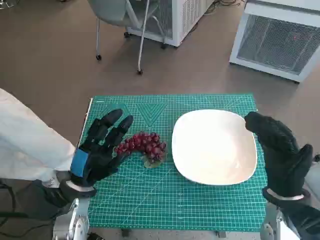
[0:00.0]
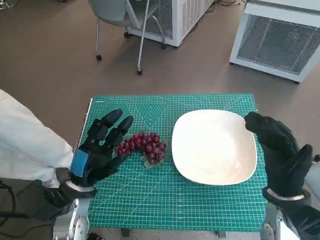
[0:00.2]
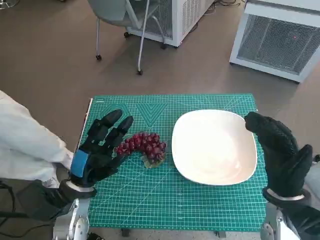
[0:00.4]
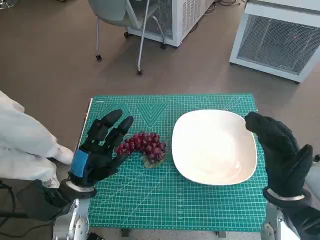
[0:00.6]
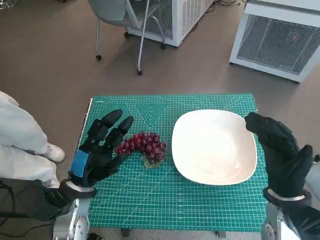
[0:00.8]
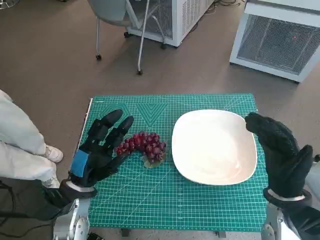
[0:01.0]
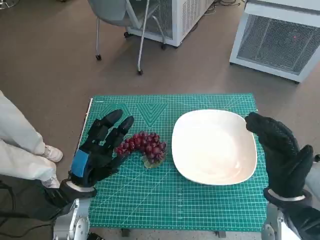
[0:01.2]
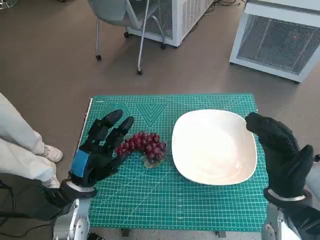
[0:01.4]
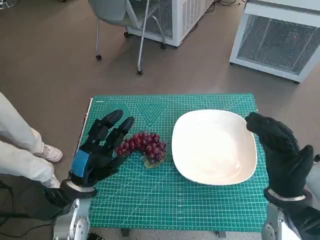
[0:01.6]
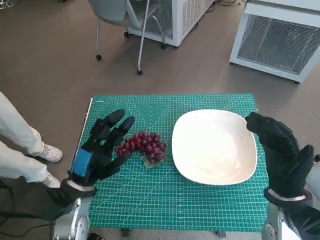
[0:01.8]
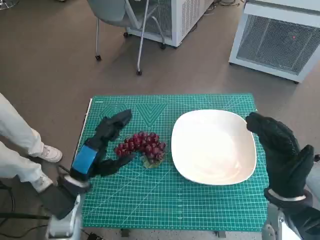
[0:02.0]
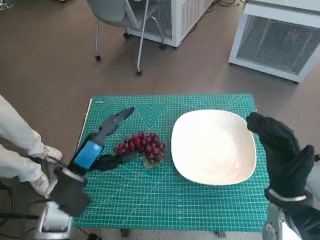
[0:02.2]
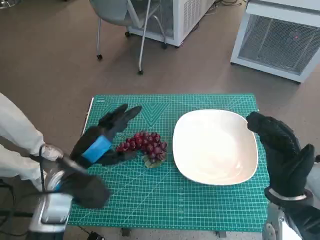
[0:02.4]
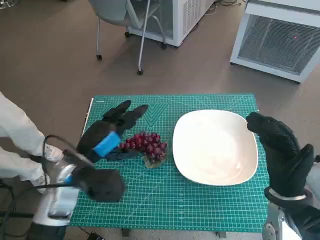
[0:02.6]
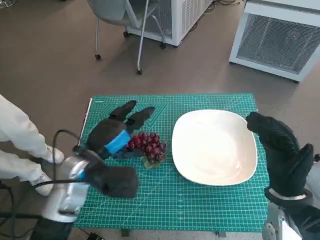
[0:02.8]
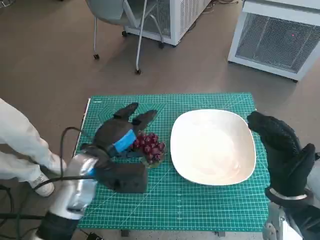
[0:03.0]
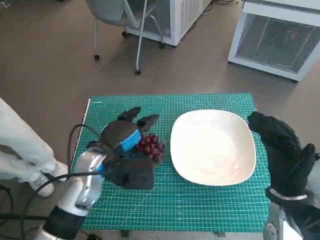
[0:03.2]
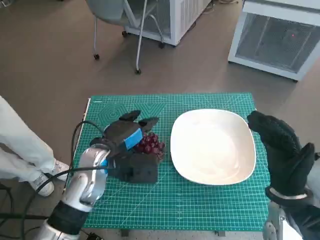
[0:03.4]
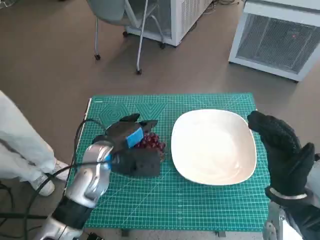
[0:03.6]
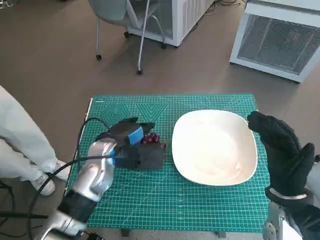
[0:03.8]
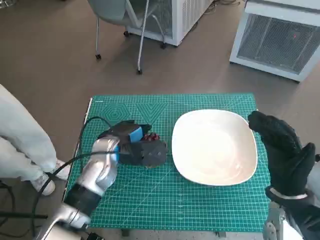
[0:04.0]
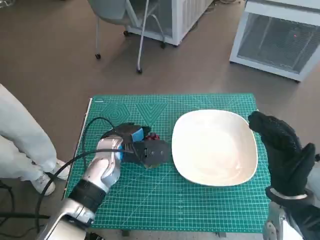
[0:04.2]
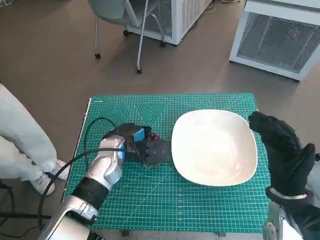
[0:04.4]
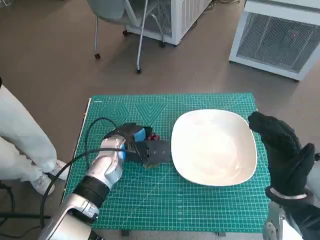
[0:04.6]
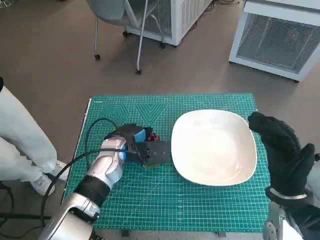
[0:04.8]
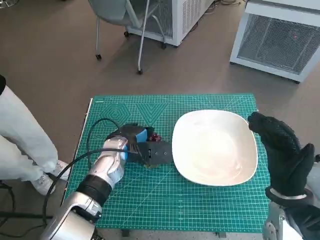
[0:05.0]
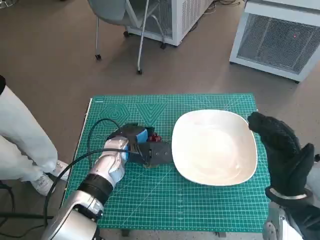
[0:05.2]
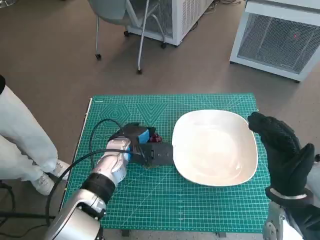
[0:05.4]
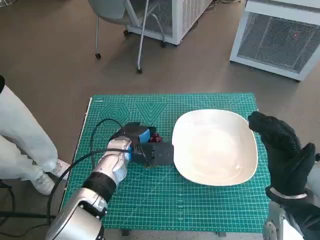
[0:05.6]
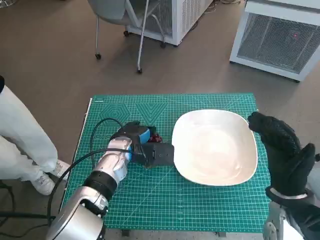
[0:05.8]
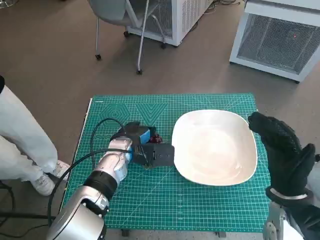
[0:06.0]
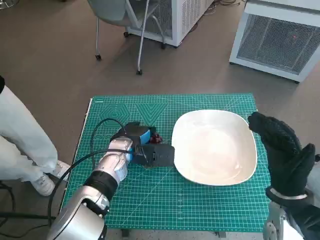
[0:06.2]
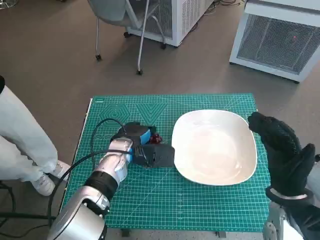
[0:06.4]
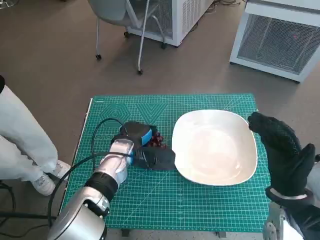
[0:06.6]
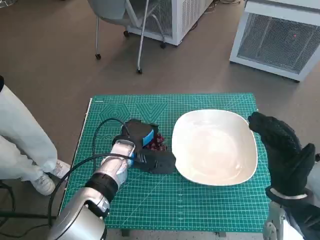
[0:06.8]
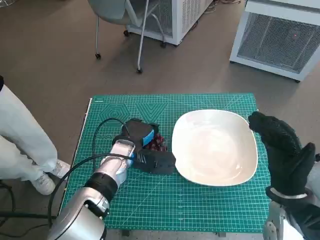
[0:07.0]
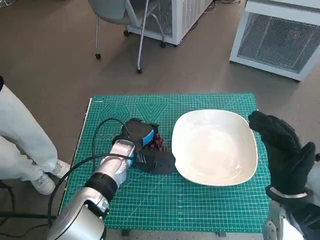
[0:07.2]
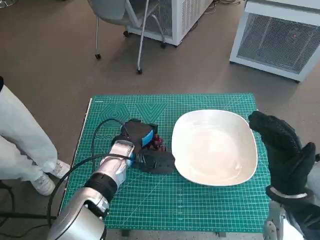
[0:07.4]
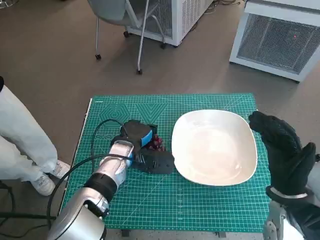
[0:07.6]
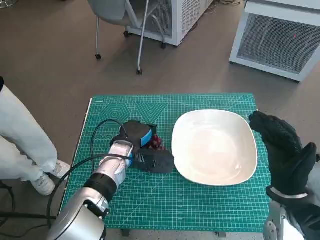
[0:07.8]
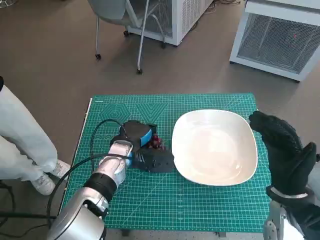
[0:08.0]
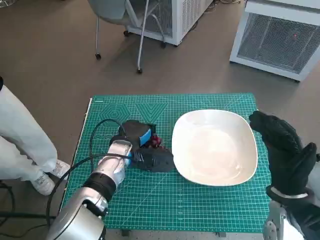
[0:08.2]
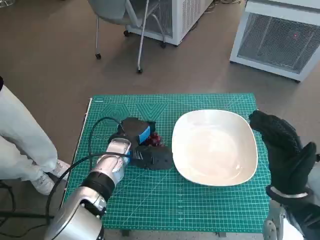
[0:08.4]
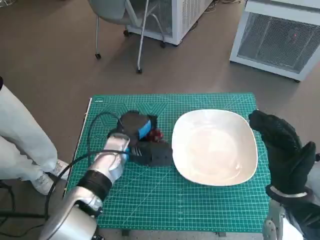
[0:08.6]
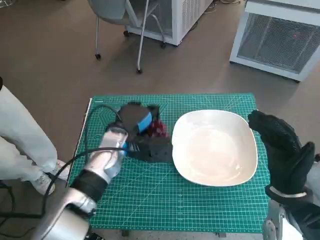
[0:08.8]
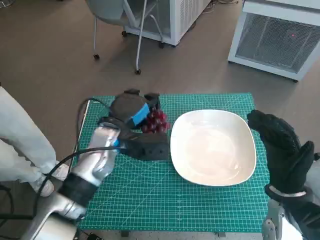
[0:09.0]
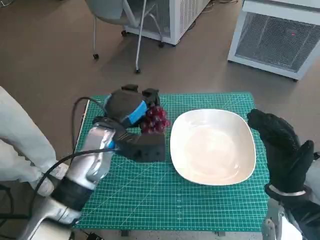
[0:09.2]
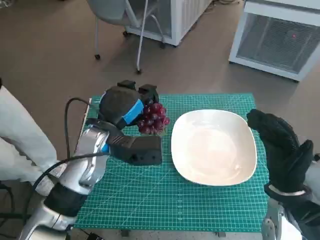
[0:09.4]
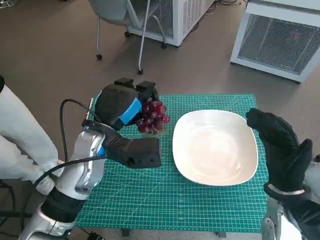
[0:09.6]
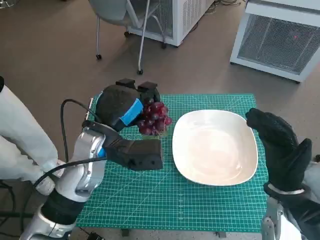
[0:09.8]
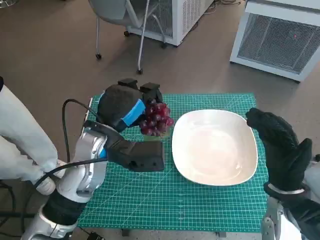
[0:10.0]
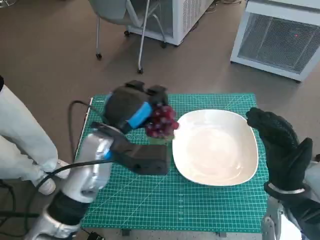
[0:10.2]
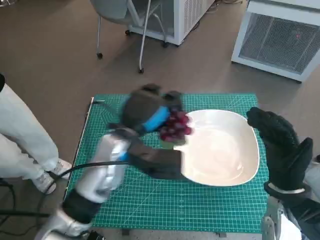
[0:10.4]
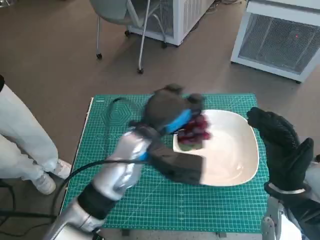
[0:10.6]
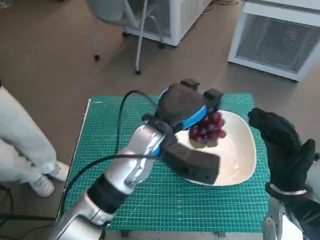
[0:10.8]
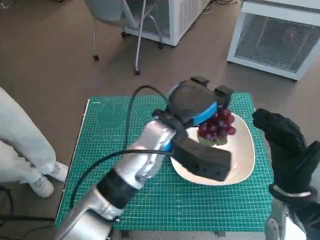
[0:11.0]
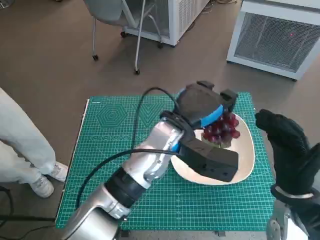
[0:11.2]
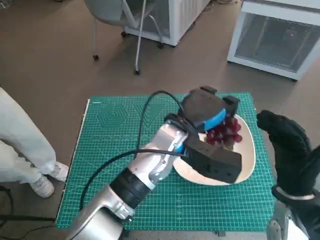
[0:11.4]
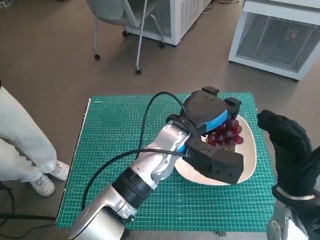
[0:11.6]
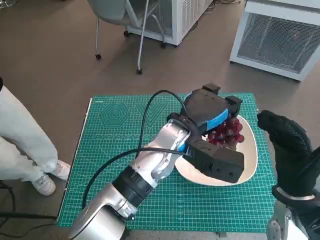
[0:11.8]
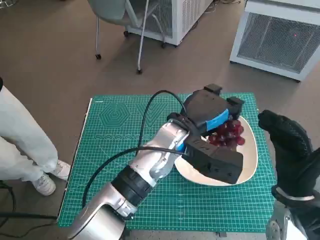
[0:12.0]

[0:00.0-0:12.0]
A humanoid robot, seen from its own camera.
Task of the whole recording: Pick up the grapes and put them on the plate.
Step, 0:00.0 to 0:06.6: Grasp the grapes with left hand.
0:01.6 to 0:03.0: The left hand goes approximately 5 cm upward.
0:03.0 to 0:04.4: The left hand goes approximately 5 cm forward.
0:04.4 to 0:07.6: The hands make only small movements.
0:07.6 to 0:09.0: The left hand is displaced upward by some 5 cm.
0:09.0 to 0:10.4: The left hand moves roughly 5 cm.
0:10.4 to 0:12.0: The left hand moves to the right, roughly 10 cm.

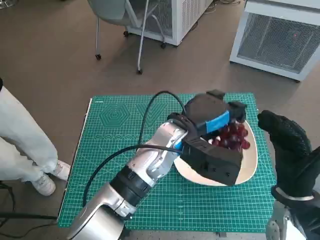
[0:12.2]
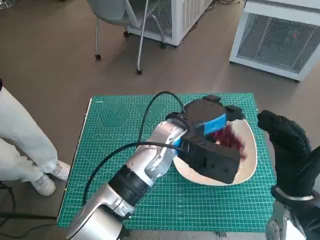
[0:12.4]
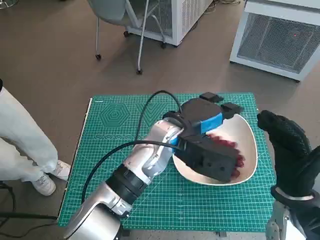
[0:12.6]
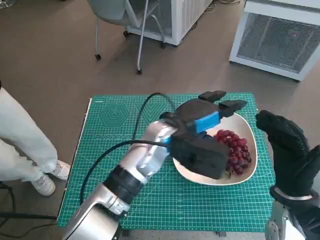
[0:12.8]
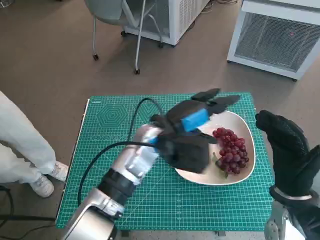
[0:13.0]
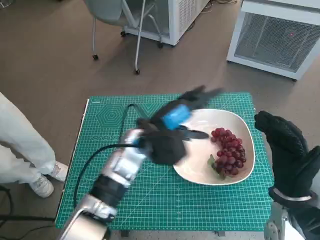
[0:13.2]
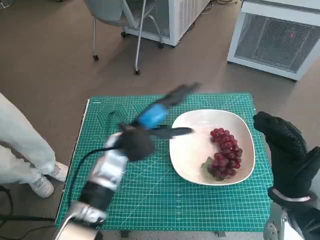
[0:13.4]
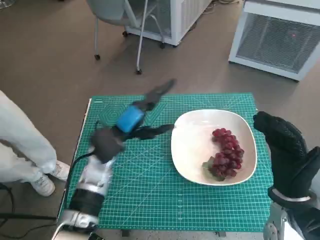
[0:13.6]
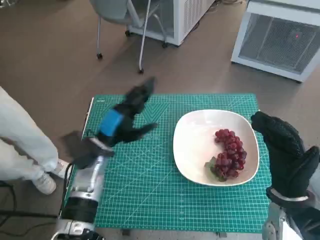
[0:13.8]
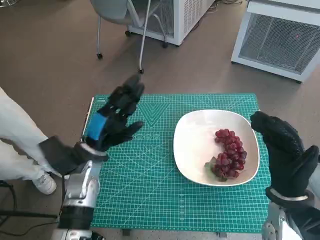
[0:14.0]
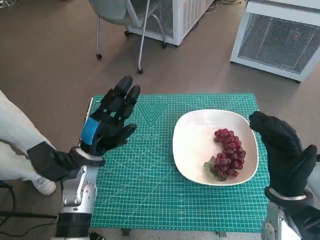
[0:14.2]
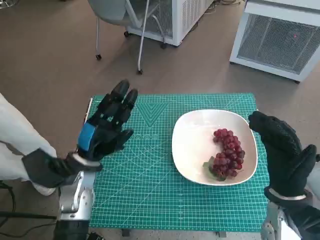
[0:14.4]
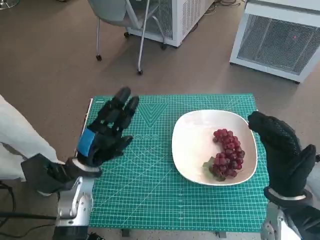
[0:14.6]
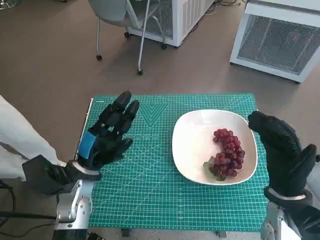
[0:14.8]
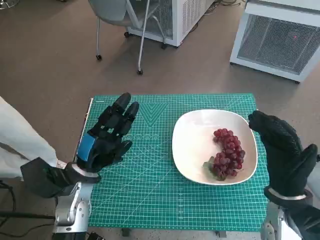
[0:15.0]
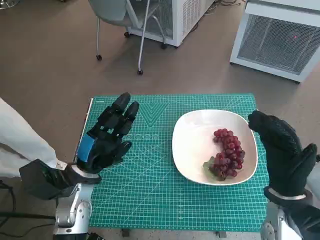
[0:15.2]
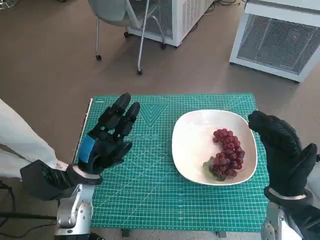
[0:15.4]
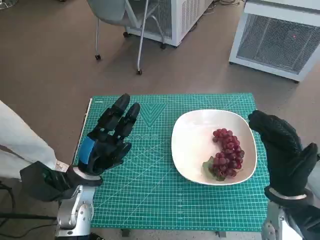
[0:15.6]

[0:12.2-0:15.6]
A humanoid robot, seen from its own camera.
Task of the whole recording: Pick up the grapes and put them on the plate.
0:12.2 to 0:13.8: The left hand goes about 15 cm to the left.
0:13.8 to 0:15.6: The left hand travels backward by some 5 cm.
